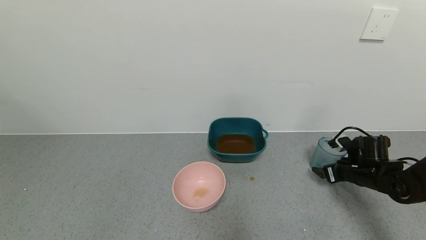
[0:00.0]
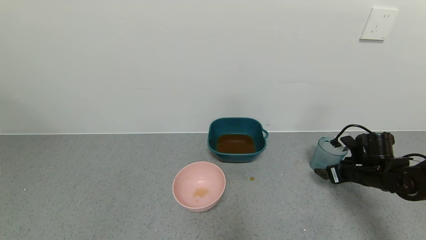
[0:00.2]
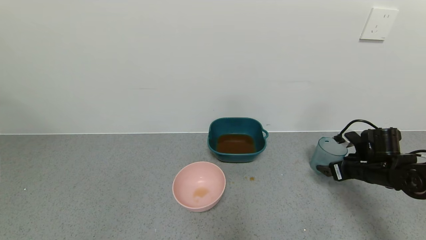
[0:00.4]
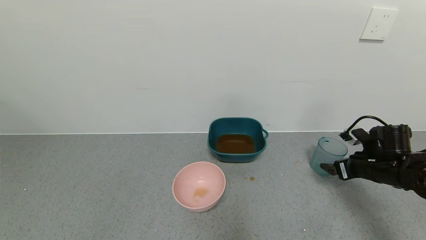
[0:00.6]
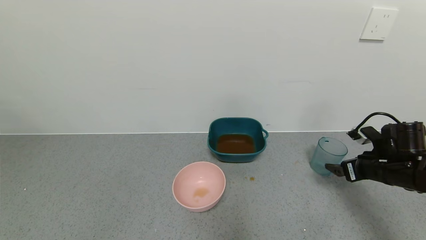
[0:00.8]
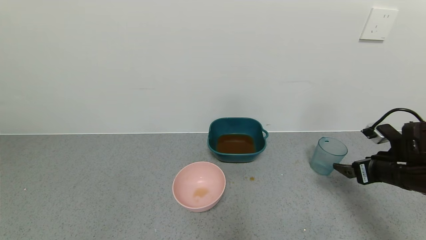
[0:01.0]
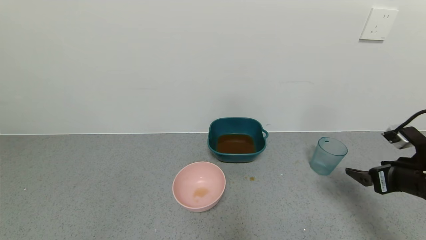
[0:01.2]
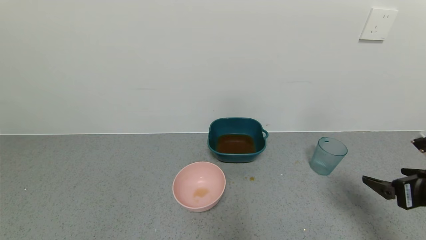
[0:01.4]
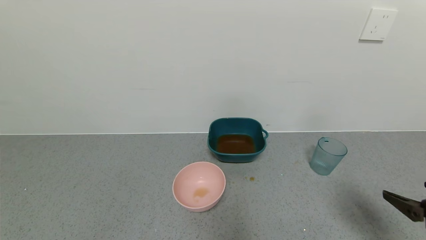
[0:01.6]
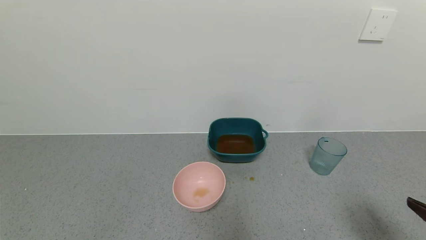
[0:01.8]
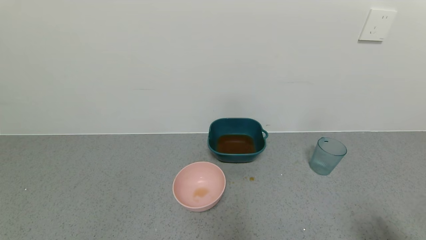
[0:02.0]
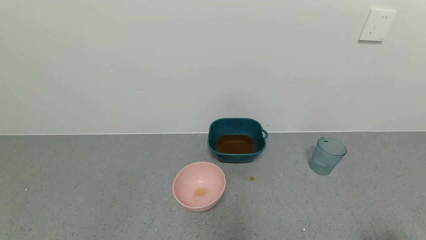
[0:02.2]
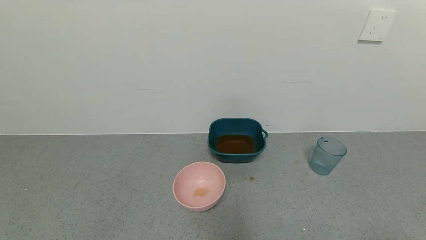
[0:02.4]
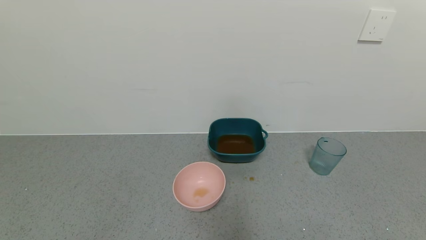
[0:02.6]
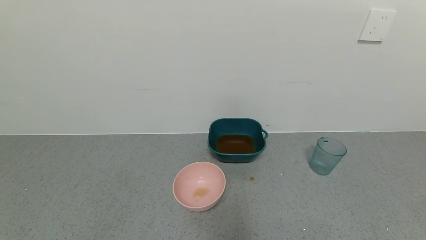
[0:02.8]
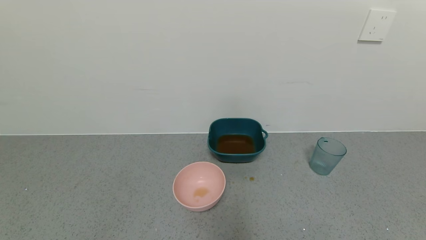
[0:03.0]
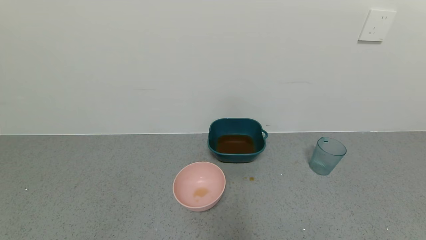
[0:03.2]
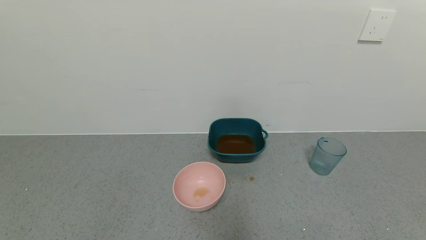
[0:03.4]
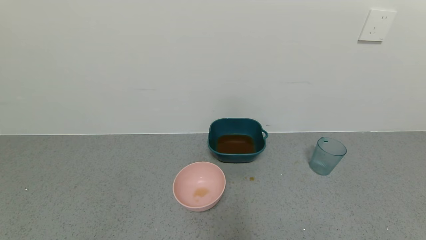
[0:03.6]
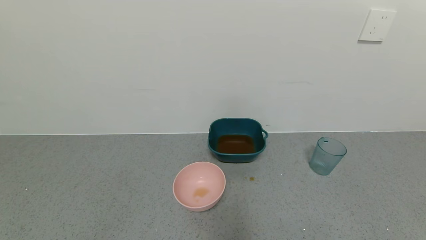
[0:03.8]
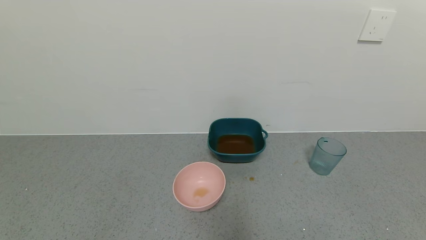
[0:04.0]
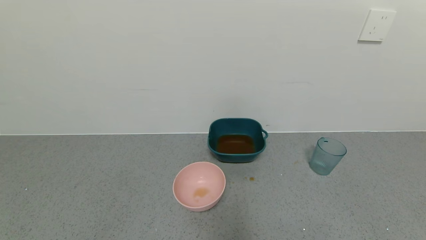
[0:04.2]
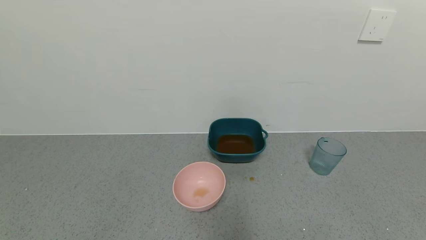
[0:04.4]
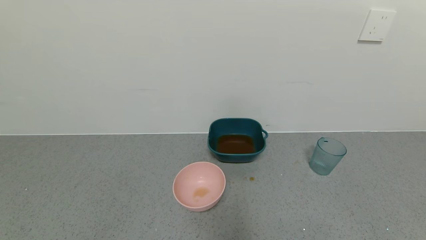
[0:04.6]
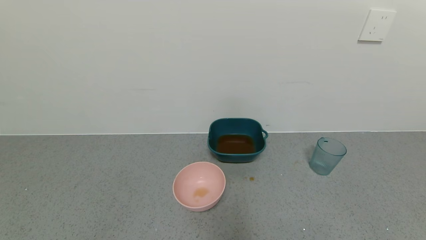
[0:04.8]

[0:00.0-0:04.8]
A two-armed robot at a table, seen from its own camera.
Task of the whole recording: use a gripper to pick up the cup and pour the liquid into a bowl or tray.
0:00.0 to 0:01.6: The right gripper shifts approximately 25 cm backward and upward.
0:01.6 to 0:03.2: The right gripper moves backward, roughly 20 cm.
